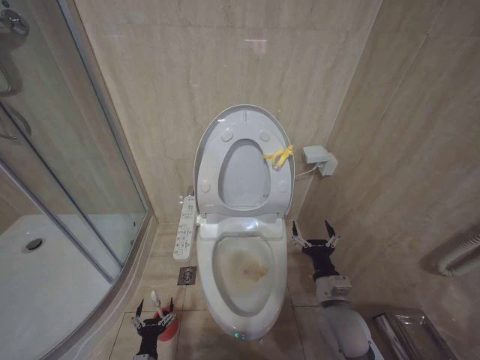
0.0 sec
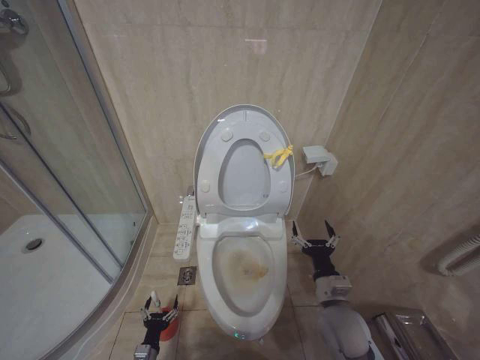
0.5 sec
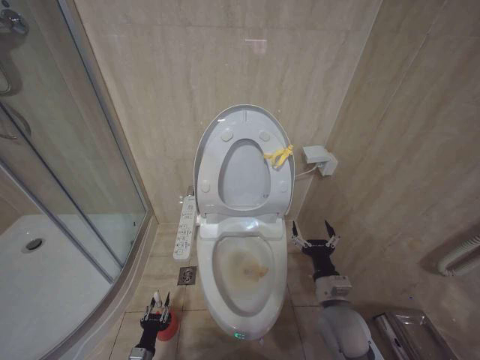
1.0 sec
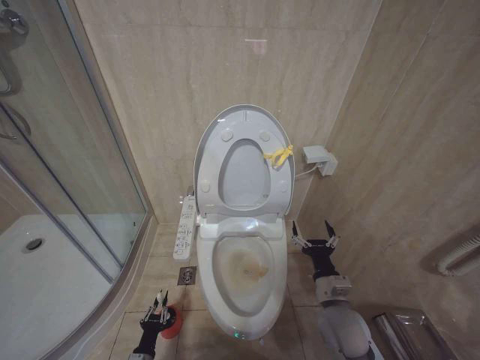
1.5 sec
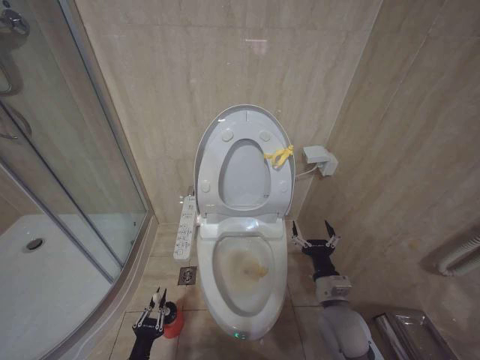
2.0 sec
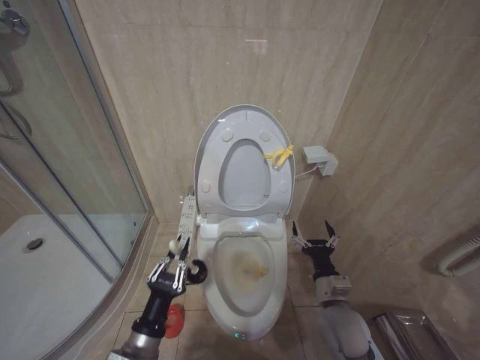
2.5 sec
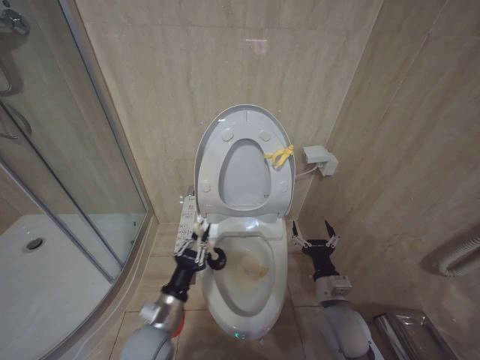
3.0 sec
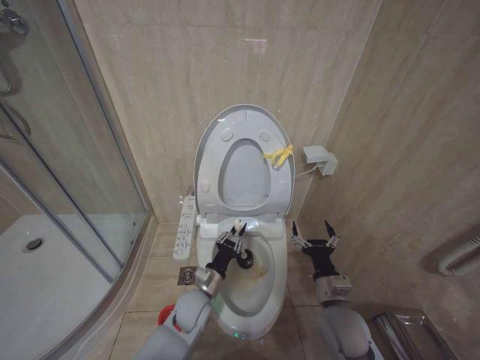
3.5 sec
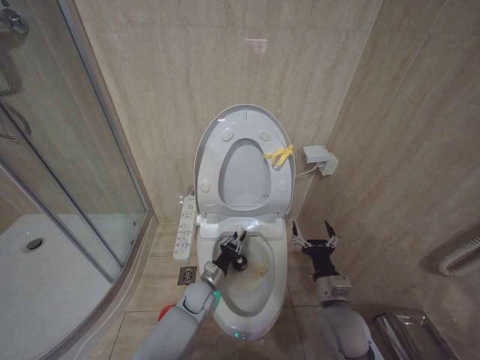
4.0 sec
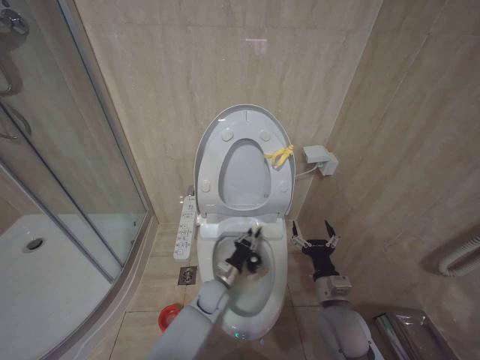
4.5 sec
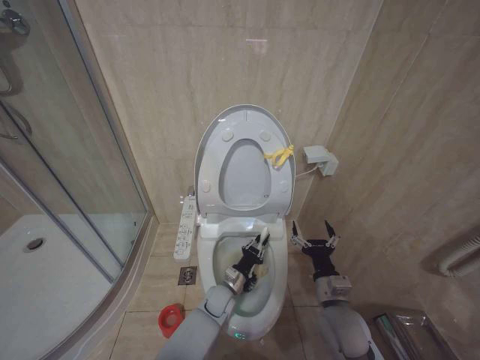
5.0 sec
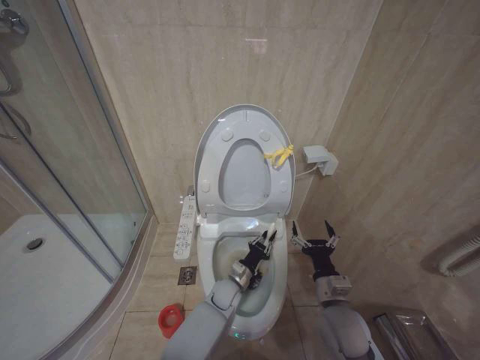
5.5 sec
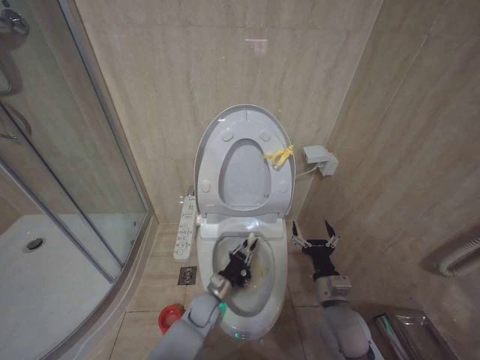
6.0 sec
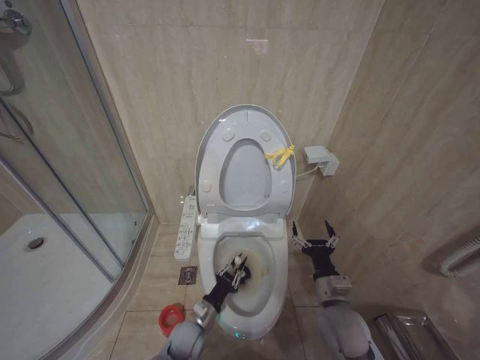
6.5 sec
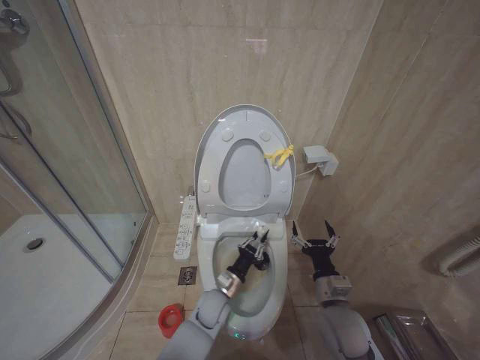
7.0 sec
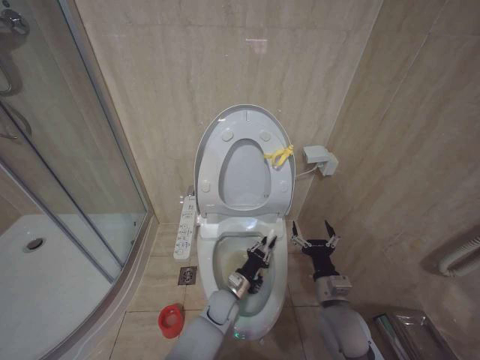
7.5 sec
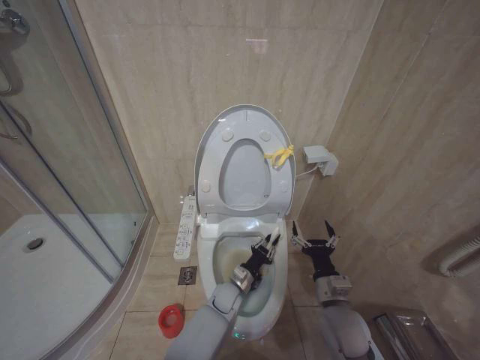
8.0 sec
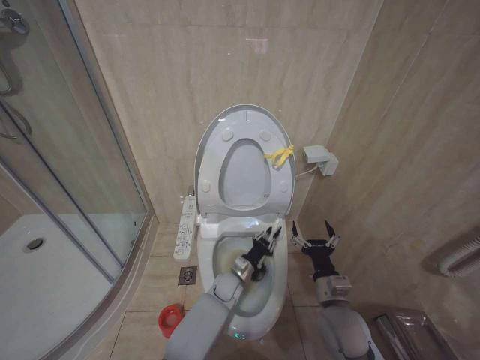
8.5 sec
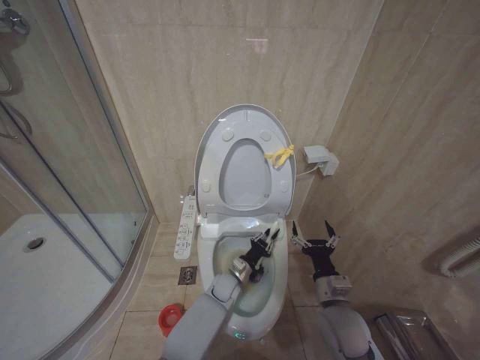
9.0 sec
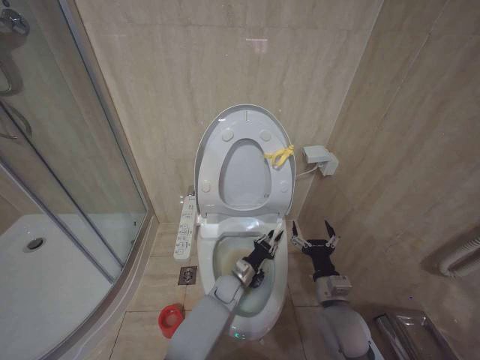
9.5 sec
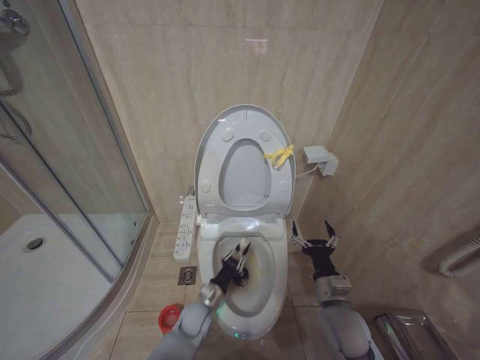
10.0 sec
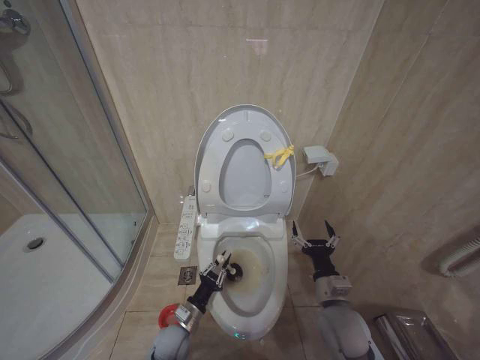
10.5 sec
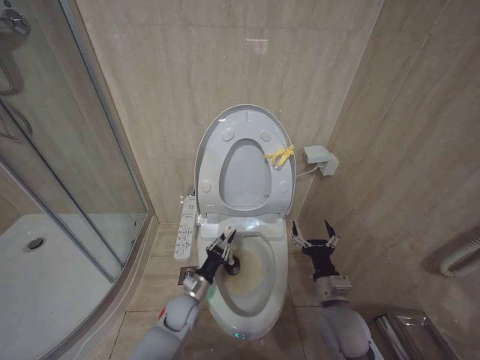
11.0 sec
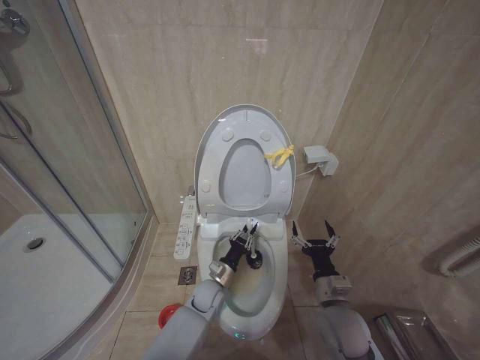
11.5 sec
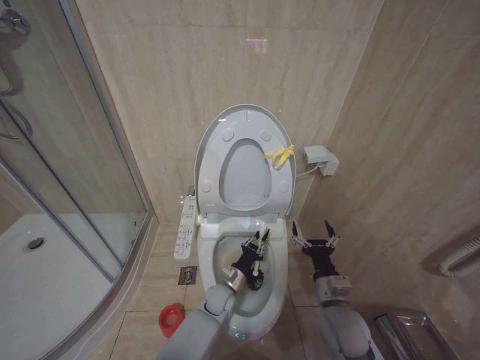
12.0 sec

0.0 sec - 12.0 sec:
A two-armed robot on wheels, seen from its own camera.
Task of the whole recording: Open the toilet lid, clean the toilet bowl with a toilet brush, close the toilet lid, and flush.
0.0 sec - 2.0 sec: The left gripper changes place by roughly 5 cm, and closes.
2.0 sec - 4.0 sec: The left gripper is displaced forward and to the right by some 30 cm.
6.0 sec - 8.0 sec: The left gripper heads to the right, covering some 5 cm.
8.0 sec - 10.0 sec: The left gripper goes some 10 cm to the left.
10.0 sec - 12.0 sec: The left gripper is displaced to the right by roughly 5 cm.

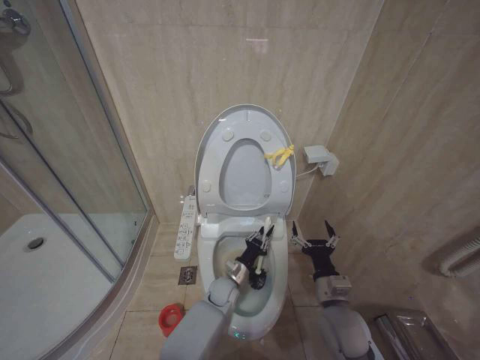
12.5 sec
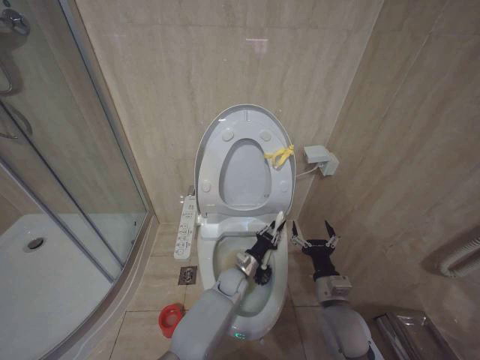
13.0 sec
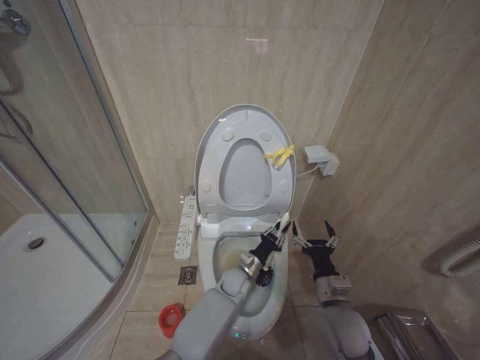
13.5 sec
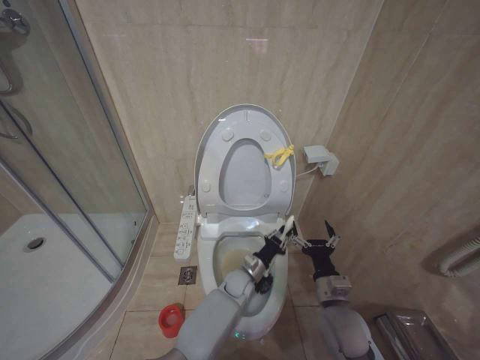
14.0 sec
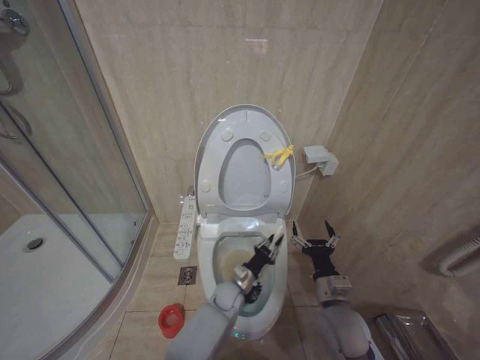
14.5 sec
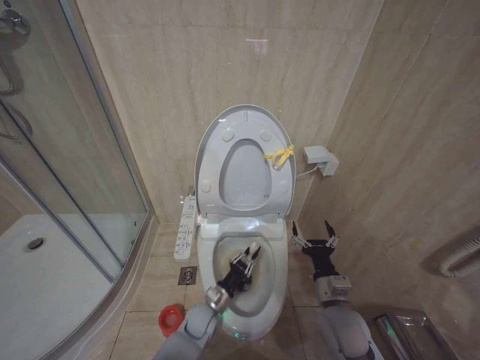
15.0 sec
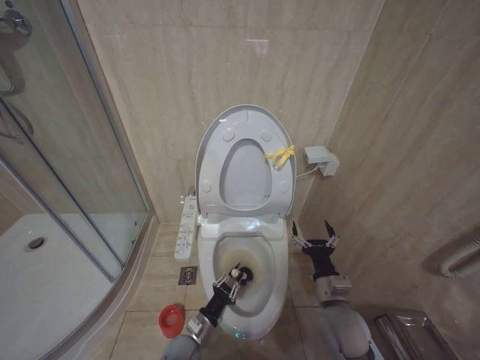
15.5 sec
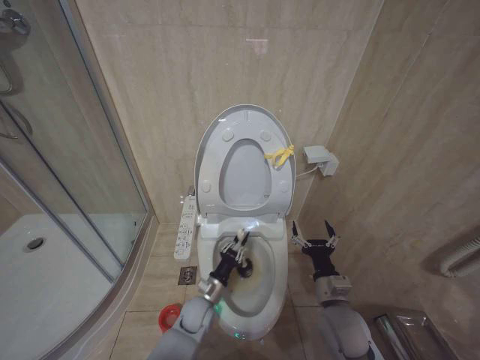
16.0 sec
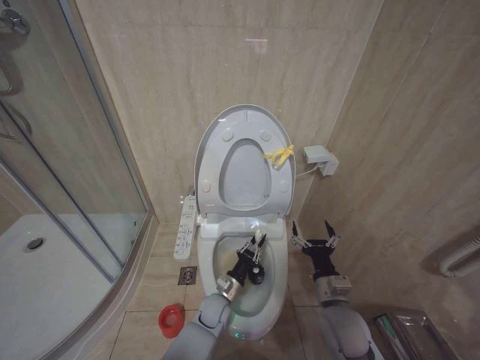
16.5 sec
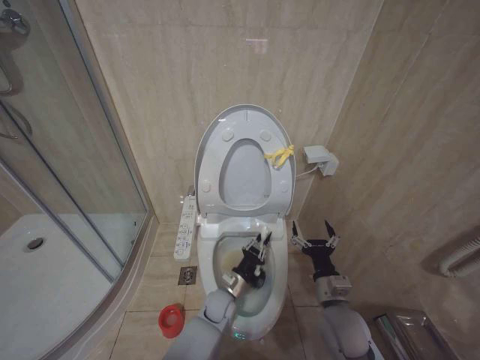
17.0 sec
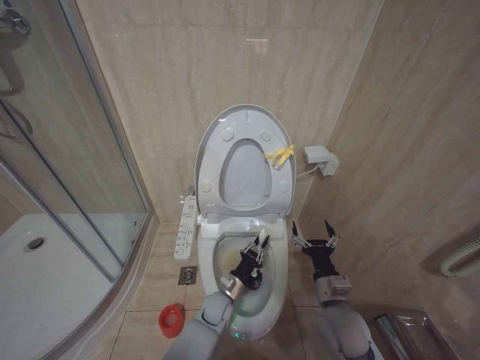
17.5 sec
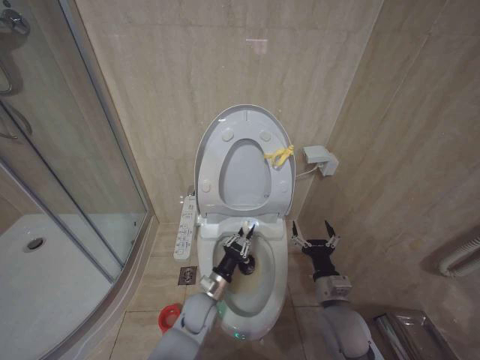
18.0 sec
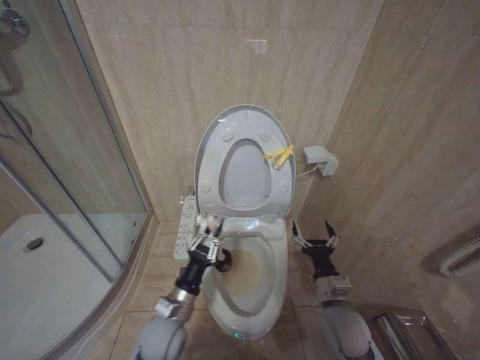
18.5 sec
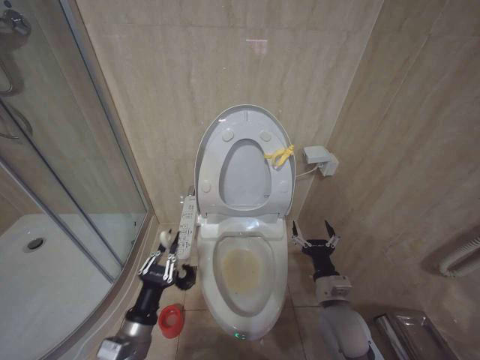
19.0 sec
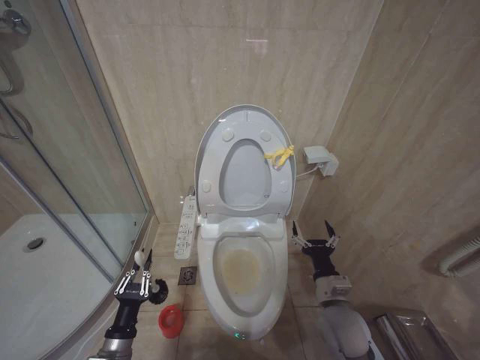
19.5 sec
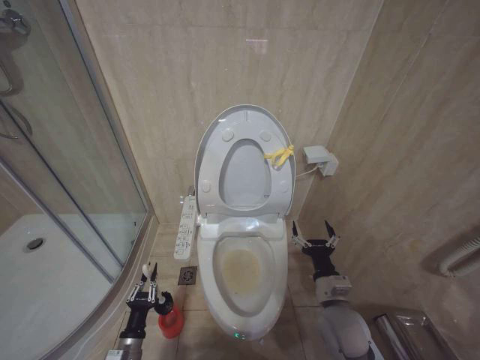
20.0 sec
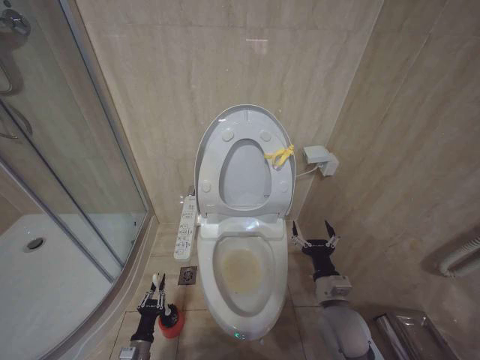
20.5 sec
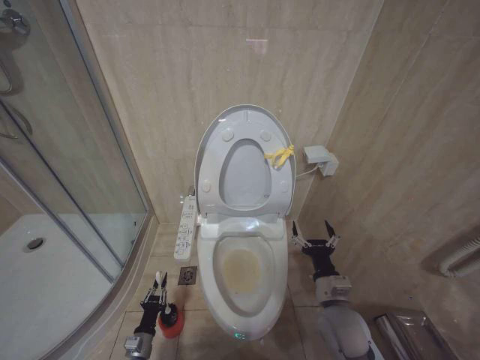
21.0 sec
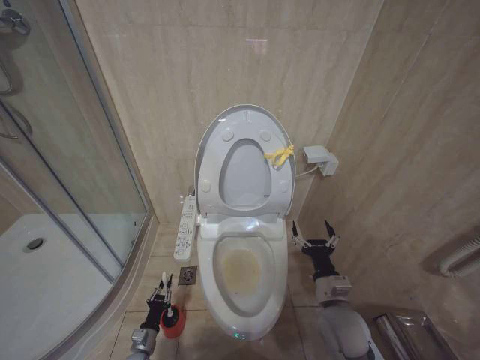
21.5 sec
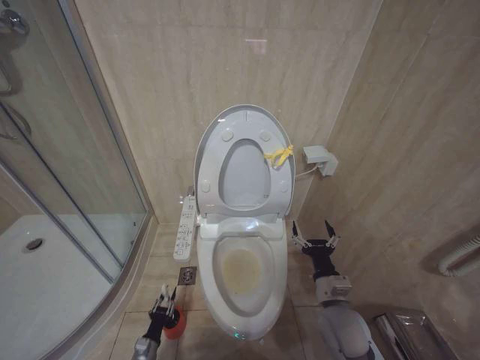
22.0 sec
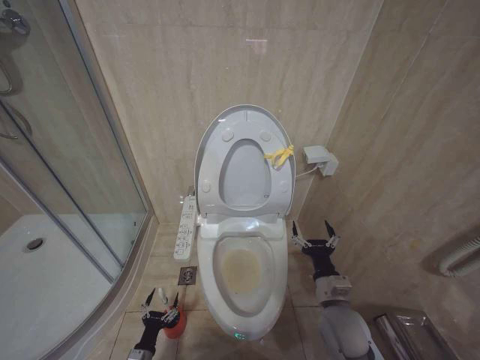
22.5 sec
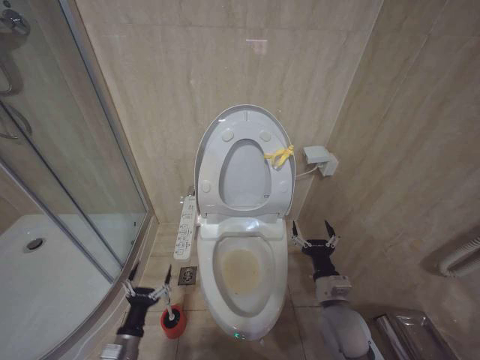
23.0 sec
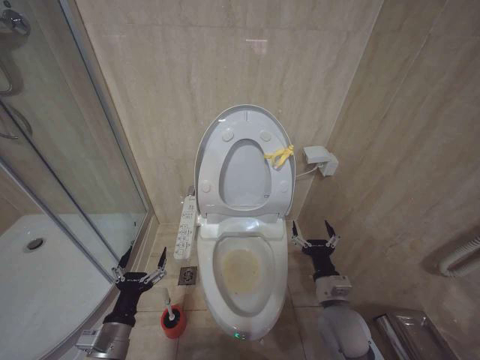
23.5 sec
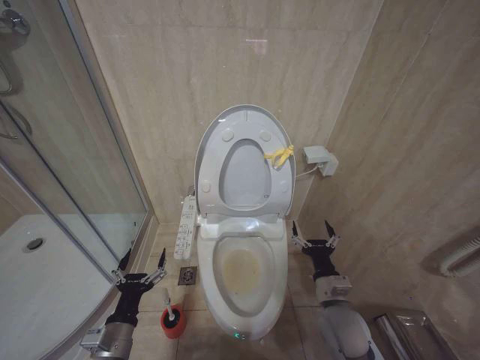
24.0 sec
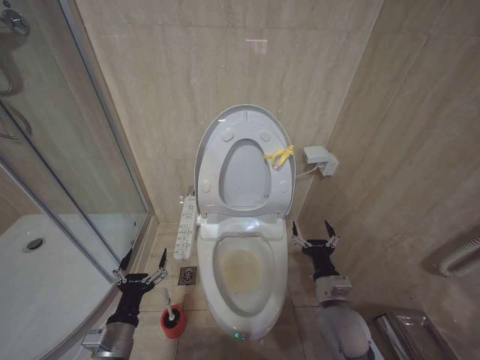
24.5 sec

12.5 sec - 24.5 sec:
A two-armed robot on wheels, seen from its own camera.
Task of the whole recording: Open the toilet lid, clean the toilet bowl with a toilet brush, close the toilet lid, and flush.
14.5 sec - 16.5 sec: The left gripper goes some 5 cm to the left.
16.5 sec - 18.5 sec: The left gripper moves upward, to the left and backward, approximately 15 cm.
18.5 sec - 20.5 sec: The left gripper shifts about 25 cm downward and to the left.
20.5 sec - 22.5 sec: The left gripper opens its fingers.
22.5 sec - 24.5 sec: The left gripper travels upward by about 25 cm.

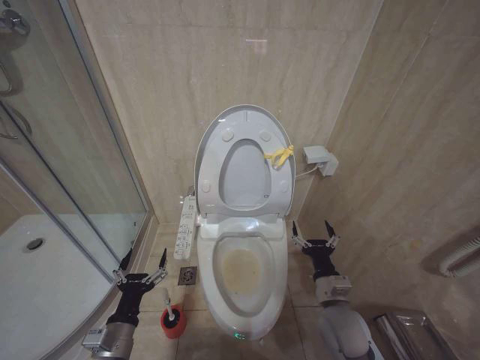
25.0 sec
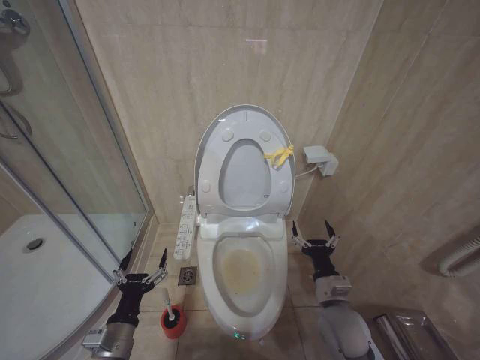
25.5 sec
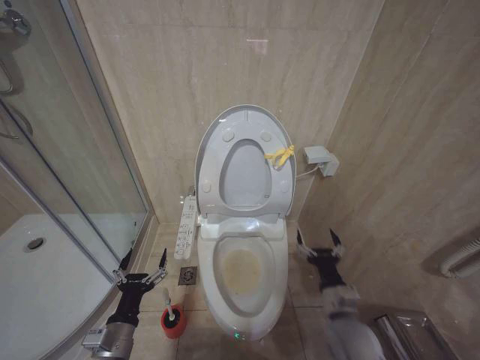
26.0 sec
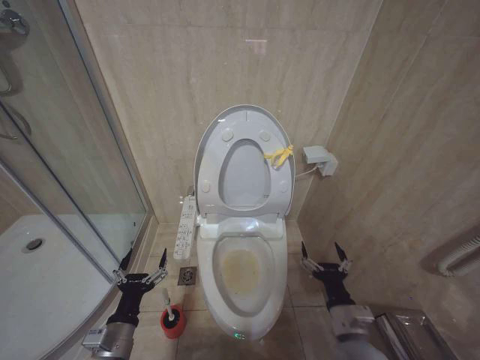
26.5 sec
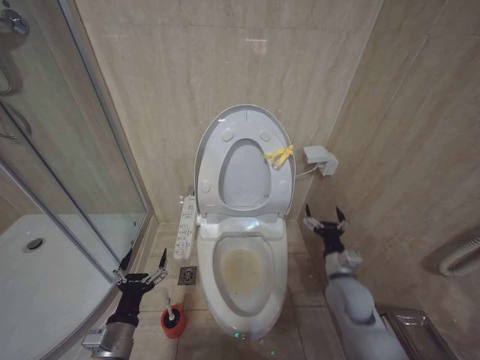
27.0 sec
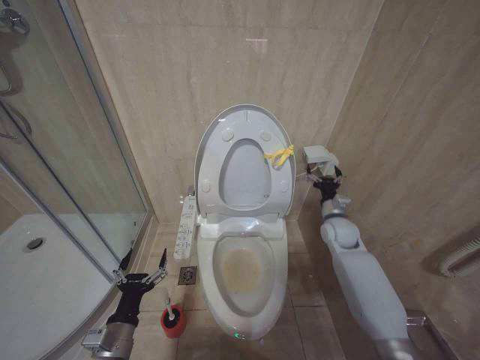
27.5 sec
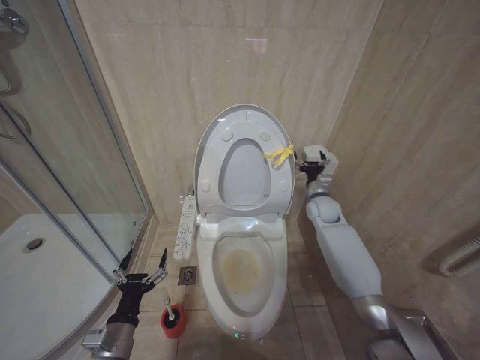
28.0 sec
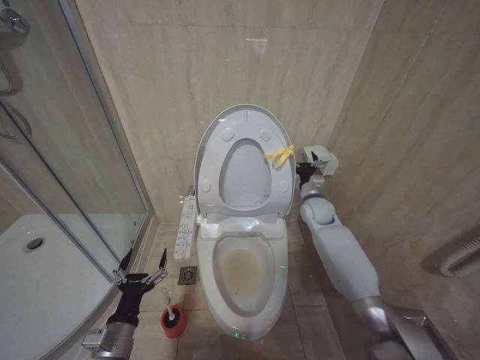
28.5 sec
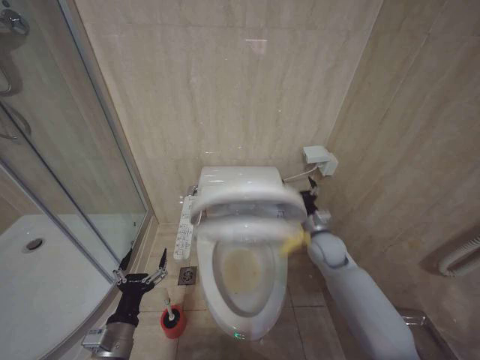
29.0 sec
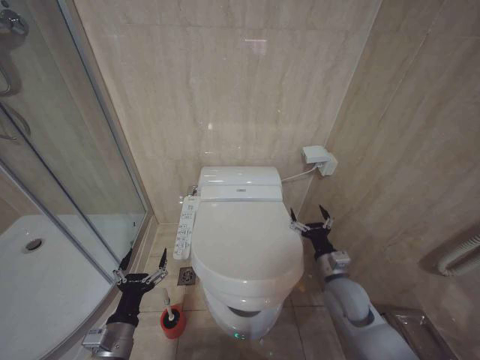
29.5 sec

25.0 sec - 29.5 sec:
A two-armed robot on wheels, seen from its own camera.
Task of the whole recording: Open the toilet lid, clean the toilet bowl with a toilet brush, close the toilet lid, and flush.
25.0 sec - 27.0 sec: The right gripper moves some 5 cm backward and comes back.
27.0 sec - 29.5 sec: The right gripper reaches roughly 25 cm forward, then returns.
